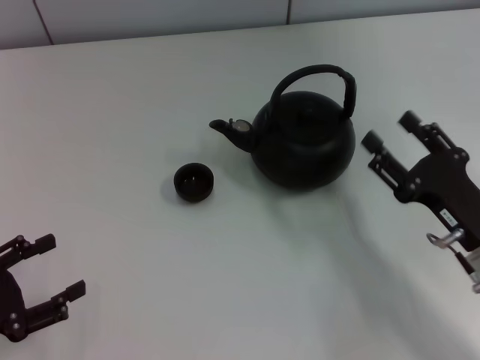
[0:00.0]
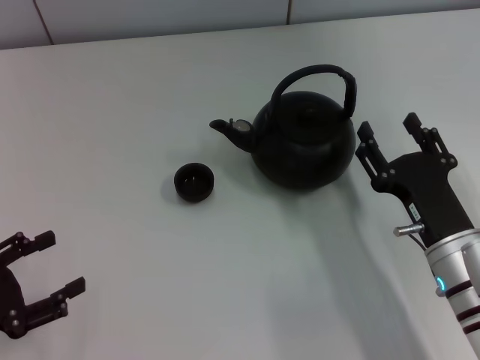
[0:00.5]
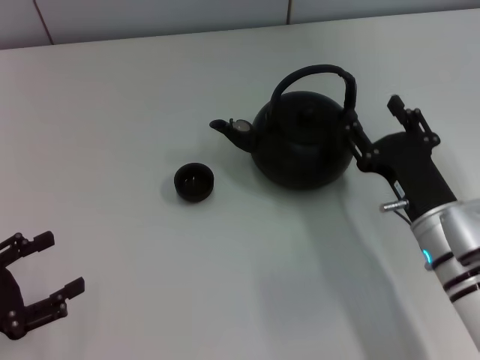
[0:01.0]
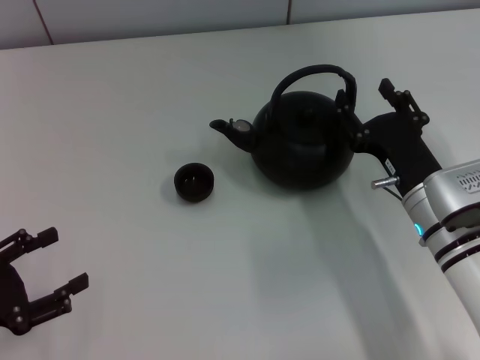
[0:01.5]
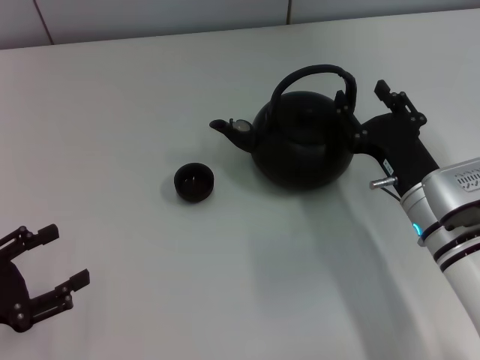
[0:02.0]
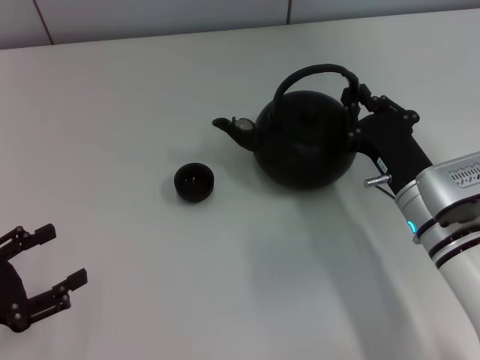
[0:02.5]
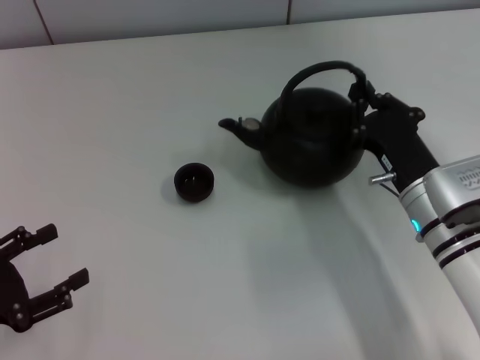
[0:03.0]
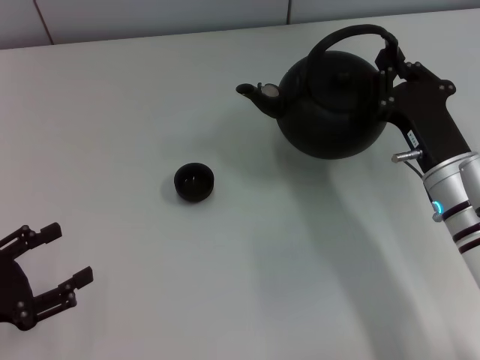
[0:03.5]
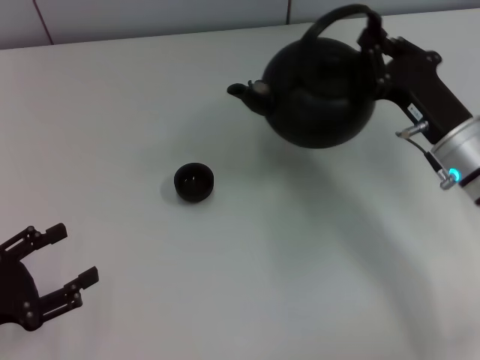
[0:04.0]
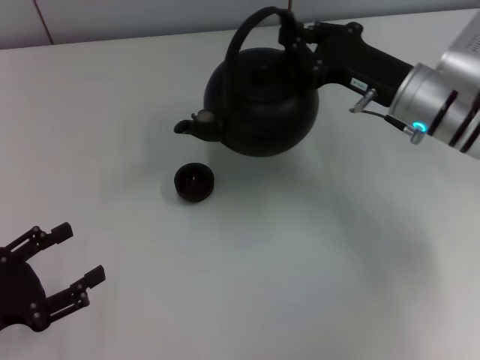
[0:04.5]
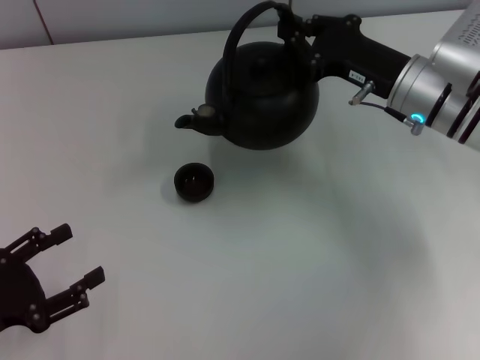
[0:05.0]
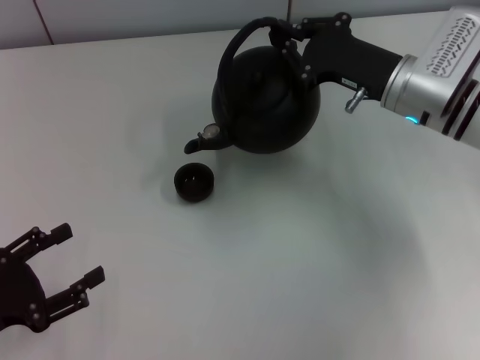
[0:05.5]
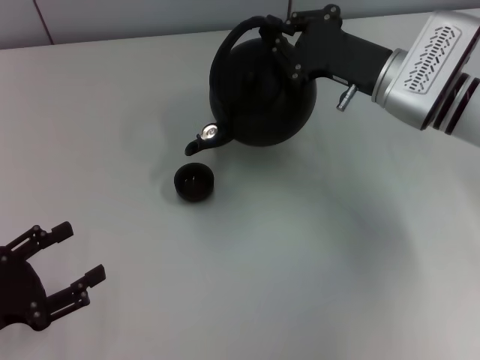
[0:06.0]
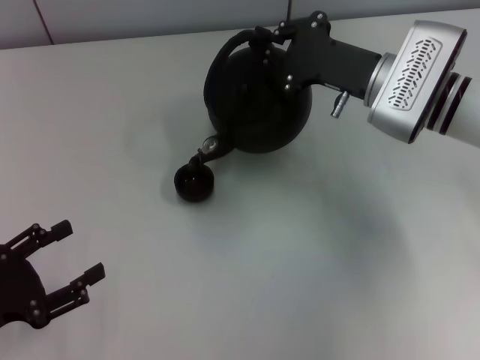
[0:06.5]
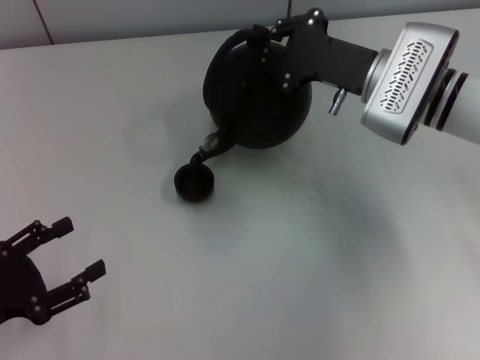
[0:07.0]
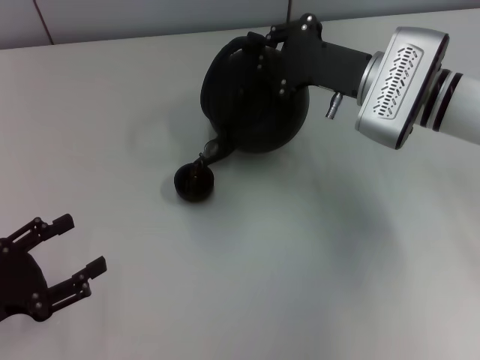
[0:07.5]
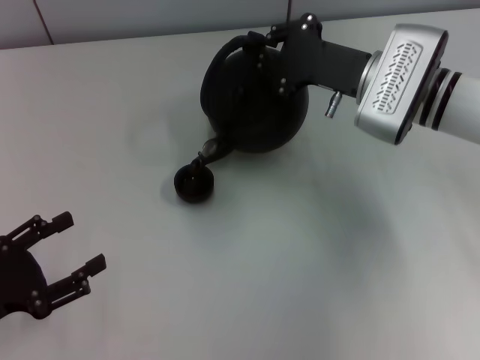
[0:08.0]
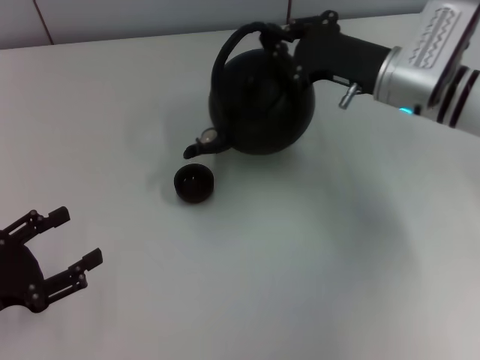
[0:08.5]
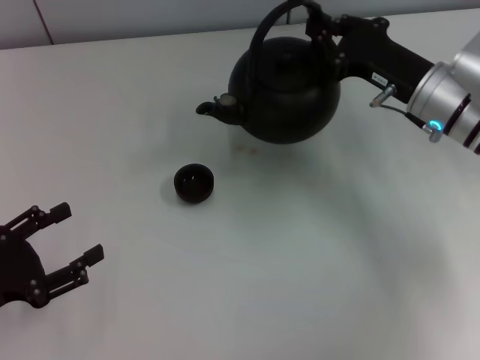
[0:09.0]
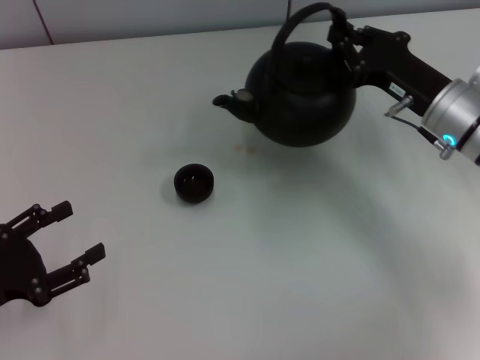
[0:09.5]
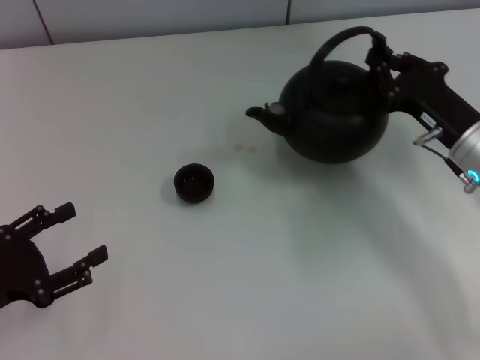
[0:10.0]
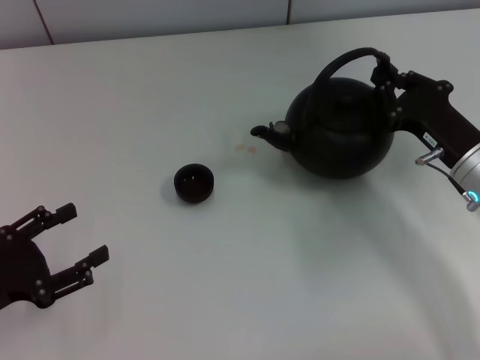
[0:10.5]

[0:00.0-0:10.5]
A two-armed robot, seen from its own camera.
Task of the whole recording: Grasp the handle of the teapot with one hand and pour tea into the teacup.
Step, 0:00.0 to 0:03.0: Pick up the teapot with the right gripper.
0:00.0 to 0:02.0: The right gripper heads forward and to the left, covering roughly 10 cm.
0:02.0 to 0:04.0: The right gripper shifts by roughly 5 cm, and closes its fingers.
0:04.0 to 0:06.5: The right gripper goes about 10 cm forward.
0:06.5 to 0:08.5: The grippers move only a little.
0:08.5 to 0:10.5: The right gripper goes about 15 cm backward, downward and to the right.

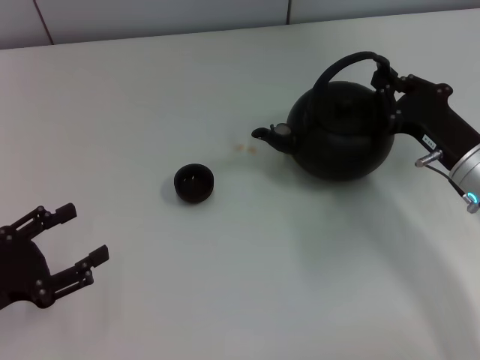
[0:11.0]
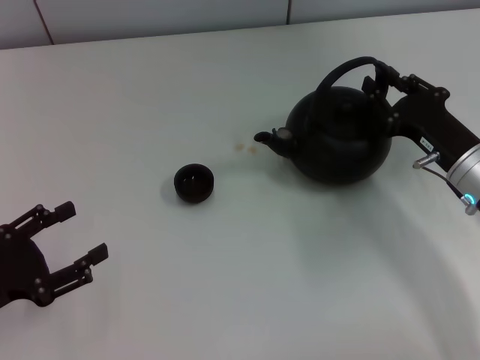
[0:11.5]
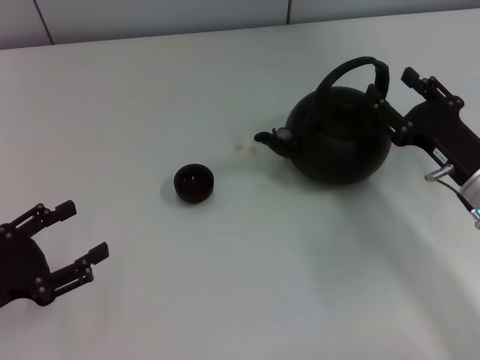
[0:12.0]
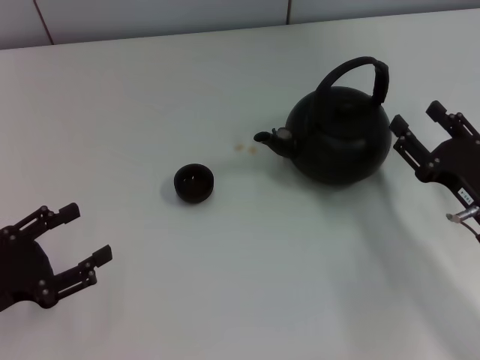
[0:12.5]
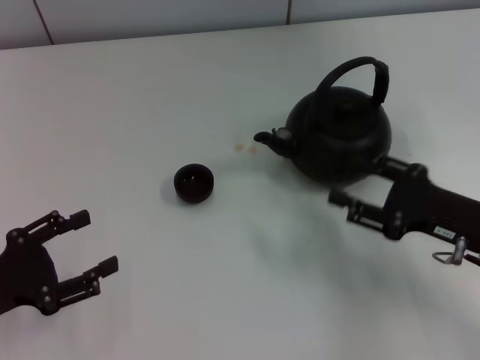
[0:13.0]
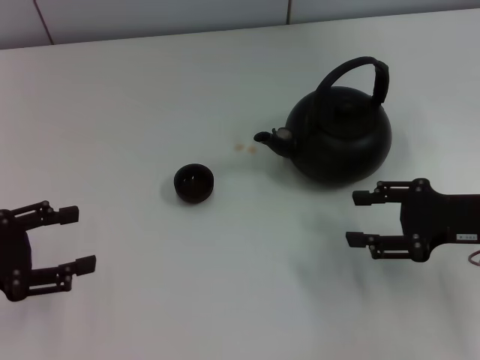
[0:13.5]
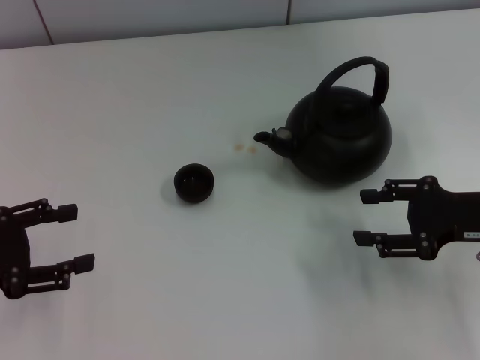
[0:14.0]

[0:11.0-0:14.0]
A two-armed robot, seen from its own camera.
Task of the whole recording: Grasp the handle of the teapot with one hand and pour tea into the teacup.
0:11.0 to 0:12.5: The right gripper goes some 5 cm backward, and opens up.
0:12.5 to 0:14.0: The grippers both shift upward by roughly 5 cm.
